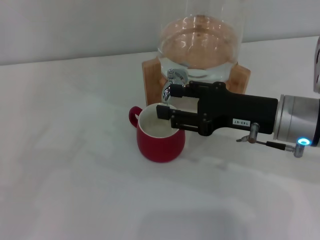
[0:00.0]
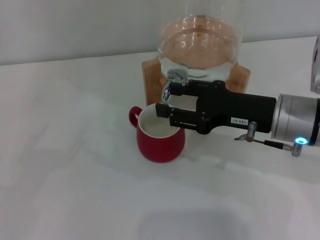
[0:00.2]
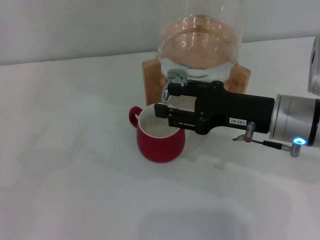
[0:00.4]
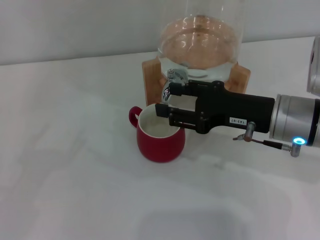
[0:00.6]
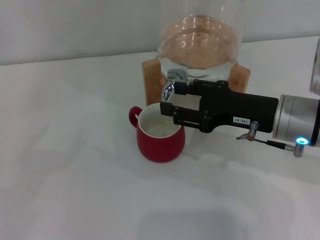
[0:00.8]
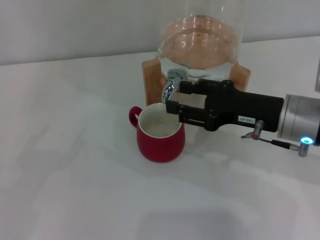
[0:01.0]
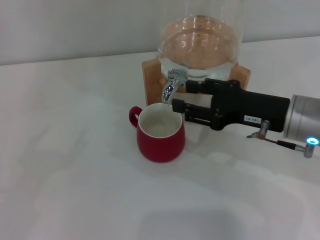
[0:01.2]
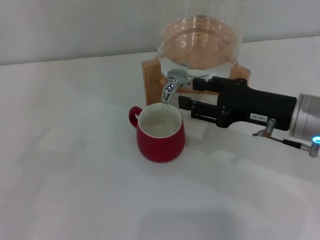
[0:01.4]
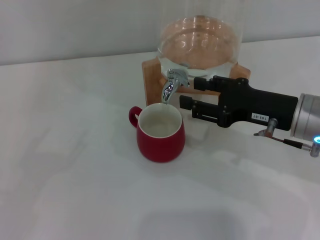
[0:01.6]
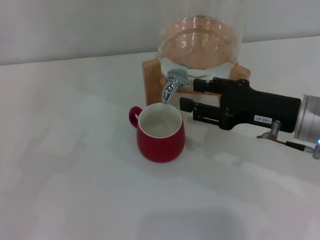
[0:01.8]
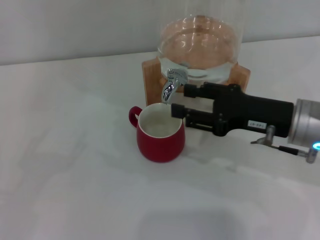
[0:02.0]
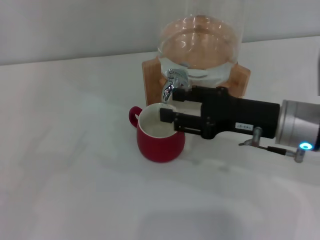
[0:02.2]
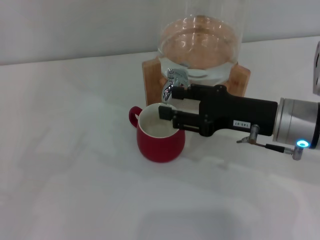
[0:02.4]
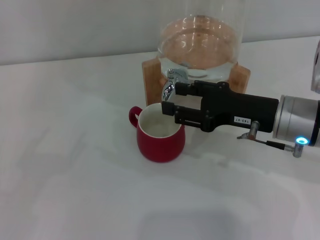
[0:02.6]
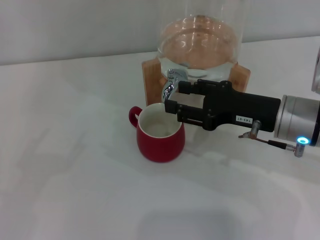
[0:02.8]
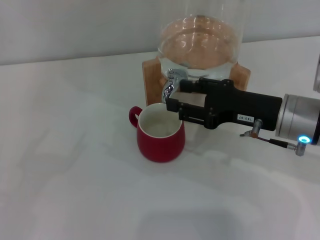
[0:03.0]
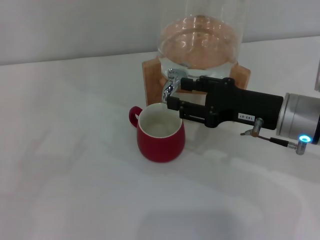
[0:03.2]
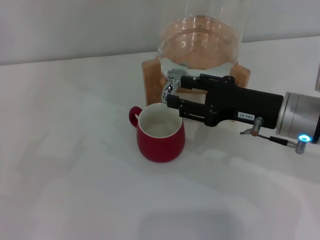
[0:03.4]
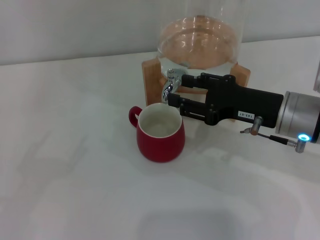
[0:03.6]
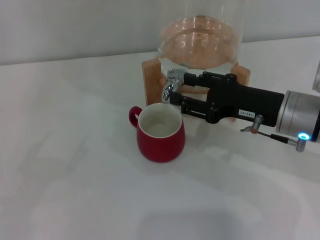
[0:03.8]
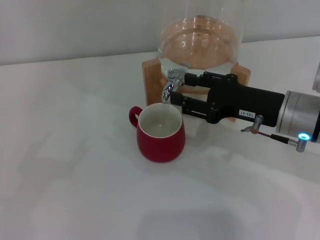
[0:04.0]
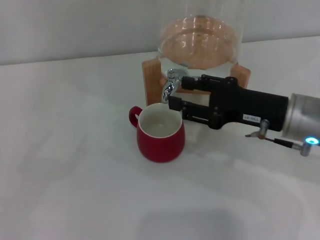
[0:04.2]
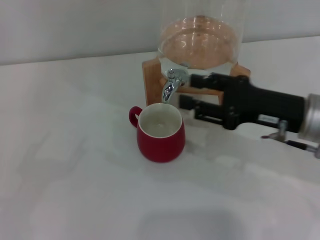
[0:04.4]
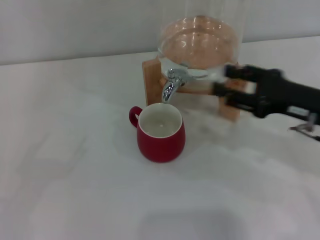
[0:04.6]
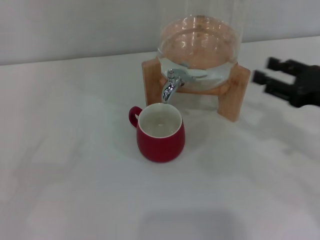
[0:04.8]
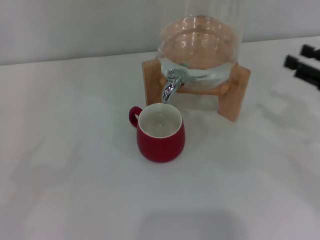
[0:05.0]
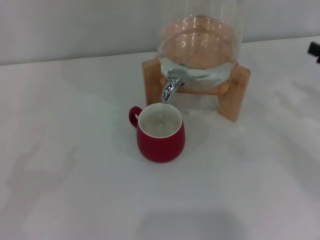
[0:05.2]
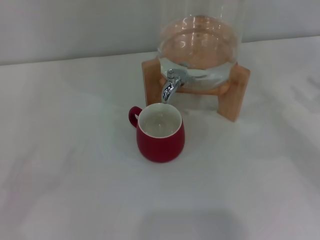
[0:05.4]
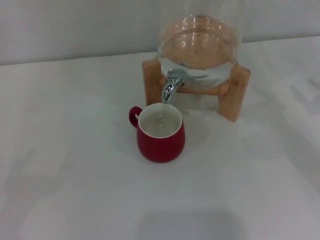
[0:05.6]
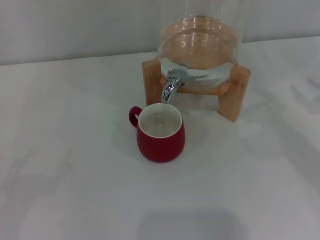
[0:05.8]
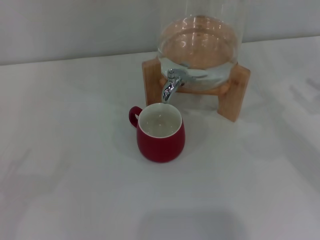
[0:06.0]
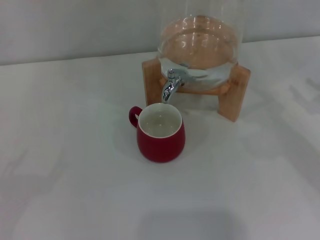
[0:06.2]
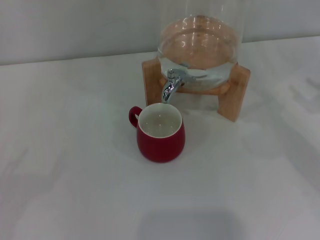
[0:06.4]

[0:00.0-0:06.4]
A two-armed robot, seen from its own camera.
Task of the whole recording: the left gripper pick up the red cup and place it horizontally under the faucet, the right gripper turn on the faucet to fill the cup, and then turn off the faucet.
Step, 0:00.0 to 0:04.4: Close the dispenser valve with the right gripper.
0:00.0 to 0:03.2: There are only small adjustments of the grippers.
0:03.2 to 0:04.8: The right gripper moves to the right, about 10 cm.
0:04.8 to 0:06.4: The right gripper moves to the right, some 10 cm.
